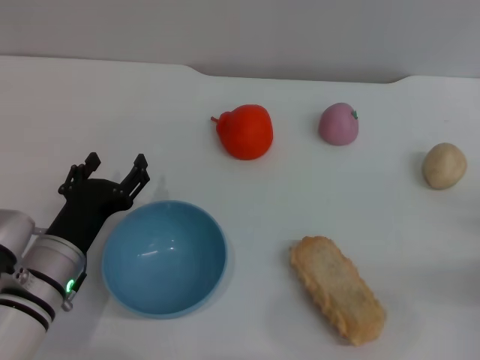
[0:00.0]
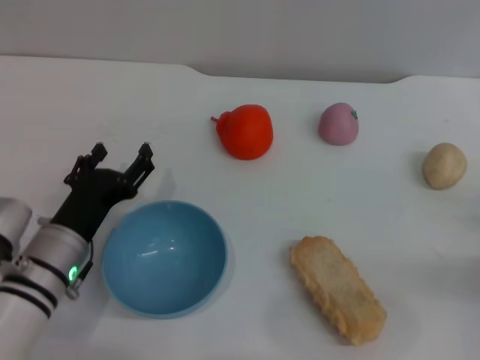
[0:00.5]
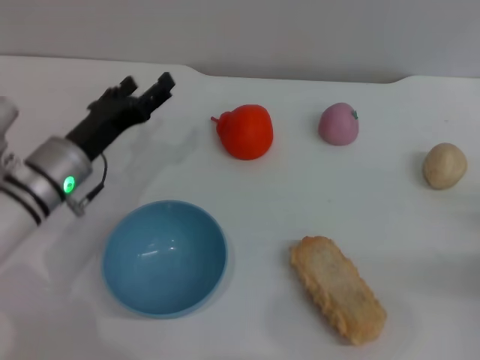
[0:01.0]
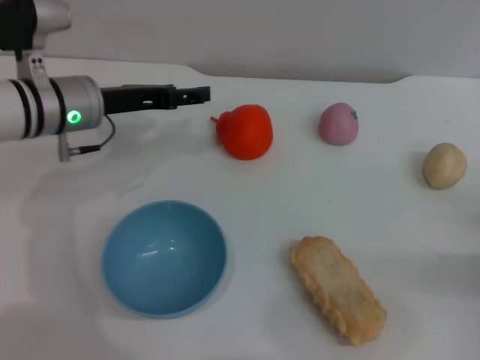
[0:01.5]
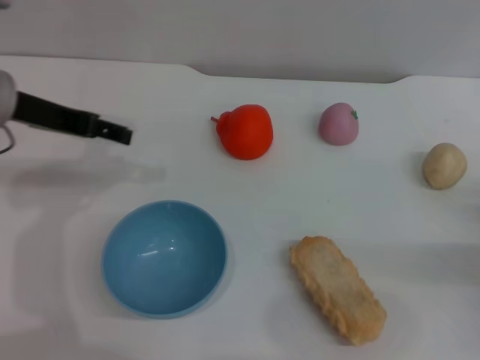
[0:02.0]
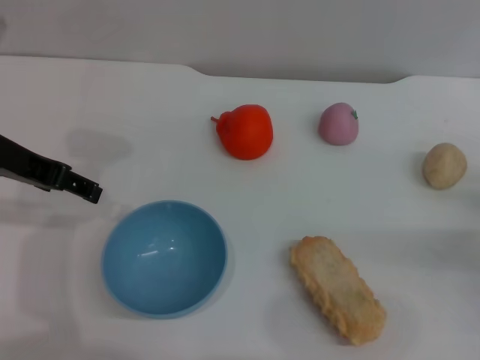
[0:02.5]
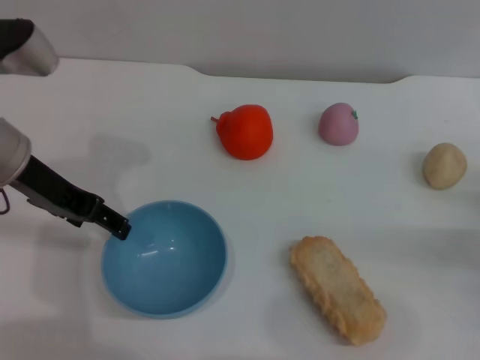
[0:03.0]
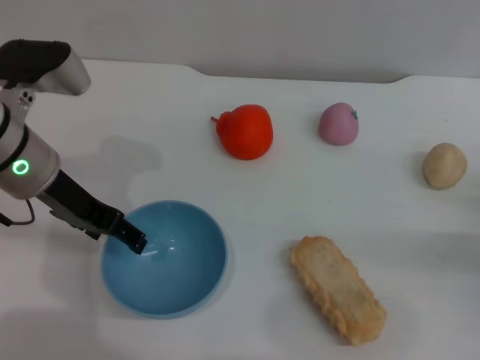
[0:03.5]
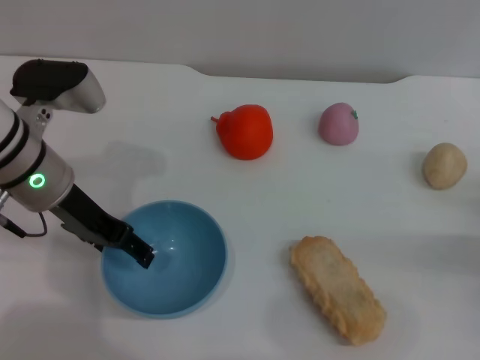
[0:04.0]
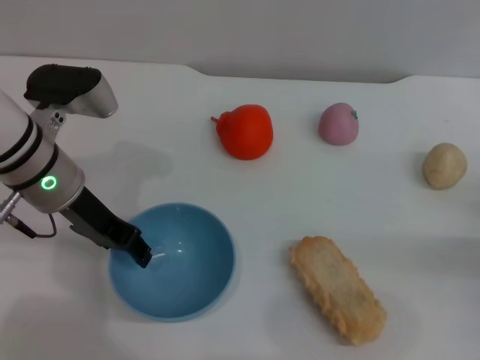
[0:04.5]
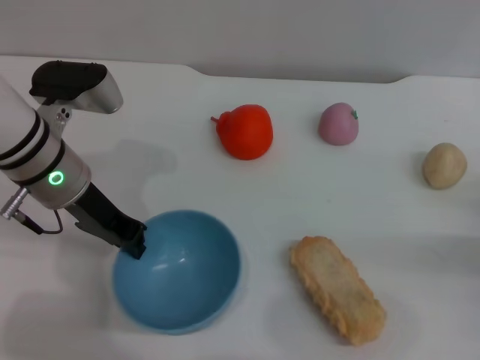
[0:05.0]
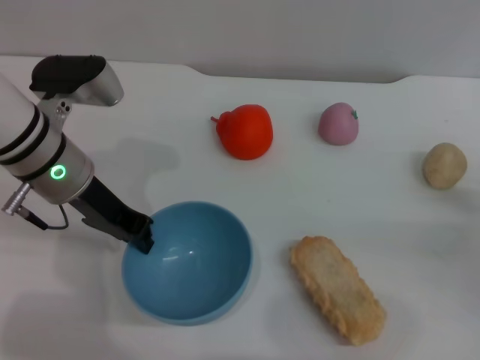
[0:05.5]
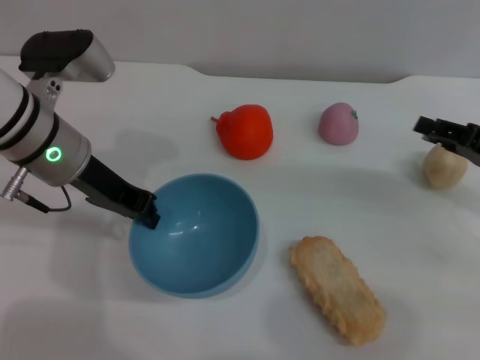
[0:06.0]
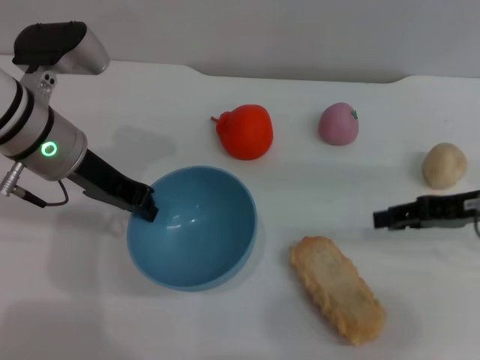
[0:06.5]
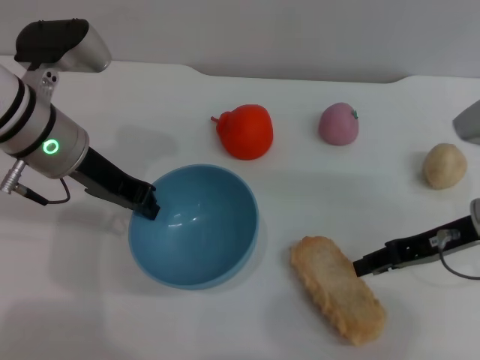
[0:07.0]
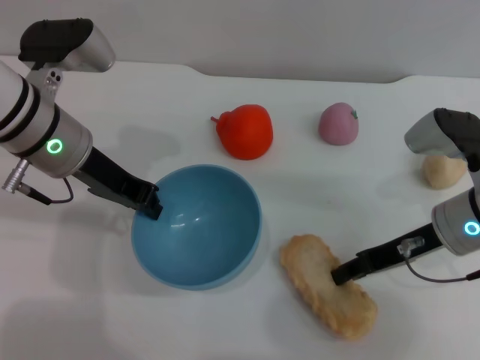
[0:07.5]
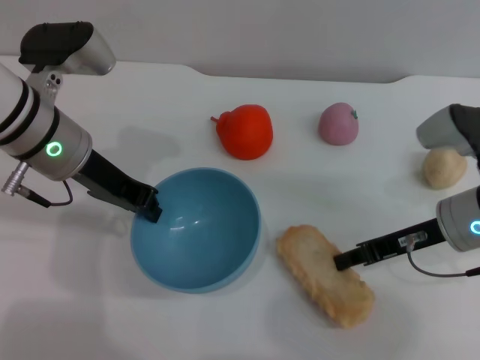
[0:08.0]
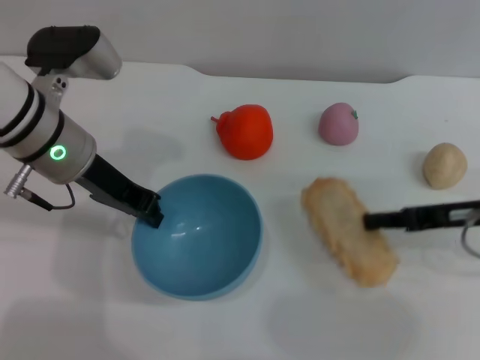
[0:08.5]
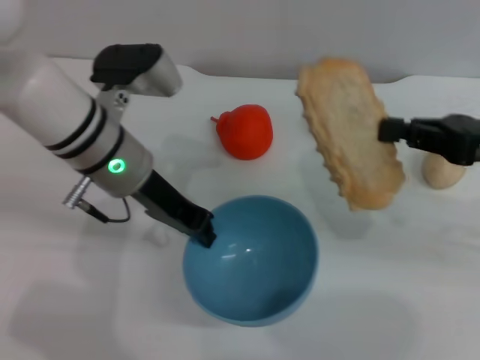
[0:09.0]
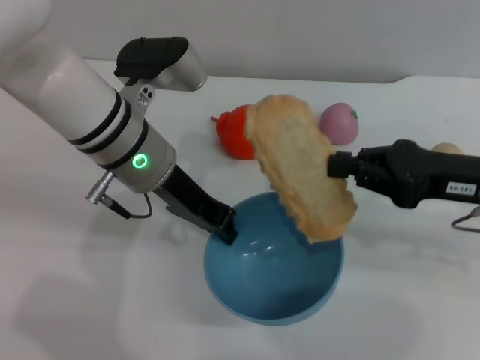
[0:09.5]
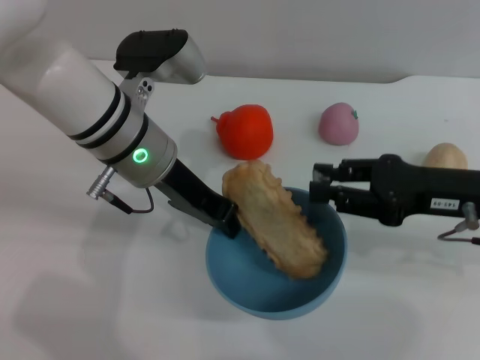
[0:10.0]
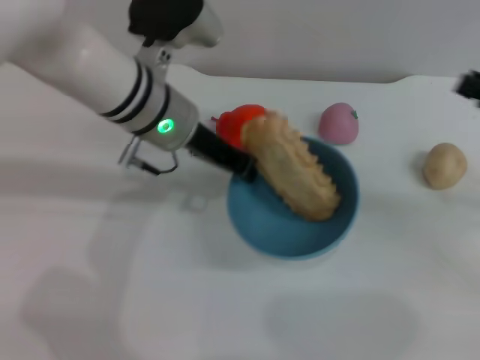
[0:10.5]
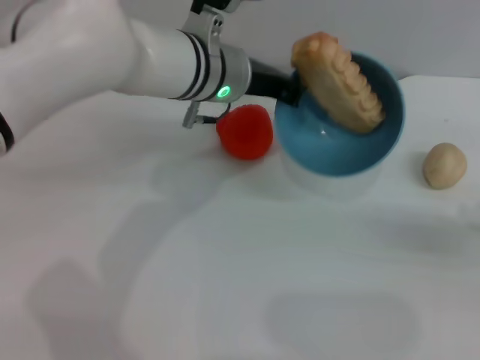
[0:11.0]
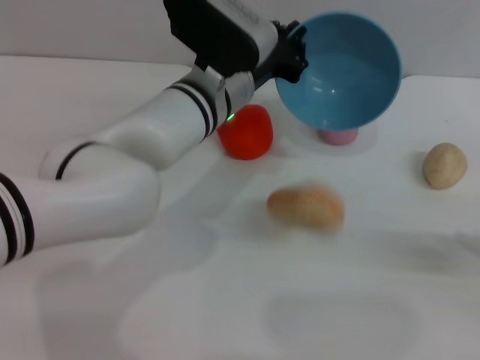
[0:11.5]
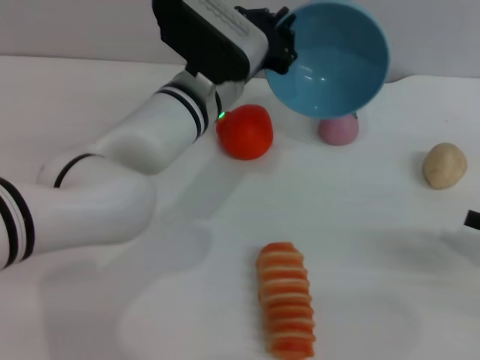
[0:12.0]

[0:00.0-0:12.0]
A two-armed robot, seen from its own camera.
Task of the whole recording: put the bread into the blue bowl and pour it out repeatedly.
Step, 0.0 to 6.0 s: Pick up the bowl with the left gripper.
Step, 6.5 to 8.0 s: Pick up the bread with the right gripper.
Step, 8.5 to 10.0 s: Place the bread into the bowl.
0.0 to 2.0 s: The left gripper moves upward and forward, roughly 20 cm.
2.0 to 4.0 s: The left gripper travels downward by roughly 5 cm.
4.0 to 6.0 s: The right gripper goes approximately 10 cm upward and forward; the left gripper closes up.
6.0 to 8.0 s: The right gripper moves to the left, roughly 10 cm.
8.0 to 10.0 s: The right gripper closes and opens again; the left gripper is displaced to the right by some 5 cm.
10.0 to 12.0 s: The left gripper heads to the right, covering some 5 cm, while the right gripper heads to the right and backward, covering some 15 cm, and opens its fingers.

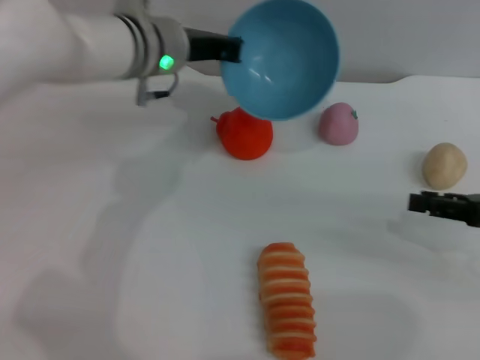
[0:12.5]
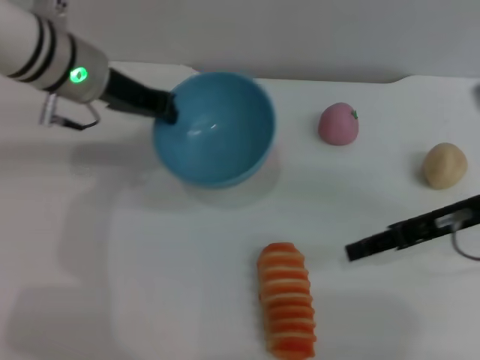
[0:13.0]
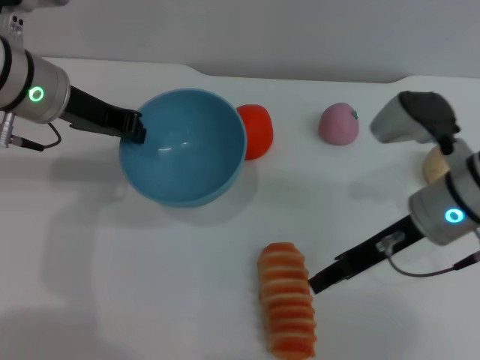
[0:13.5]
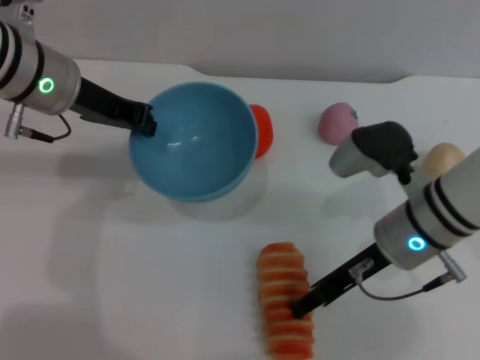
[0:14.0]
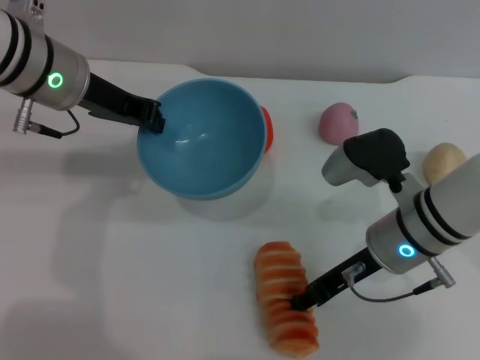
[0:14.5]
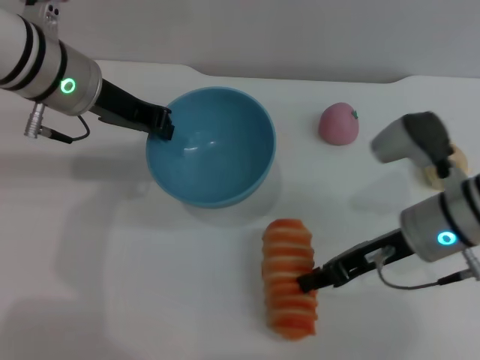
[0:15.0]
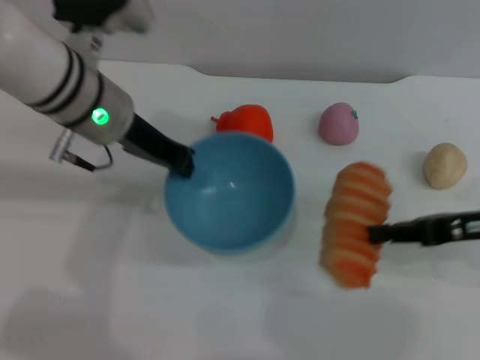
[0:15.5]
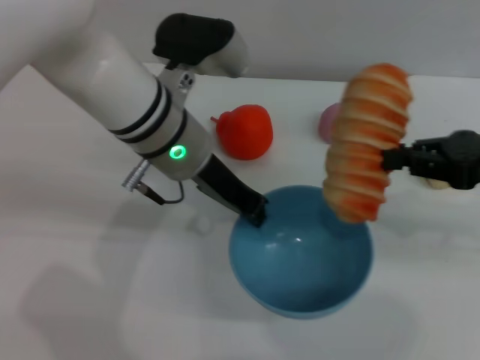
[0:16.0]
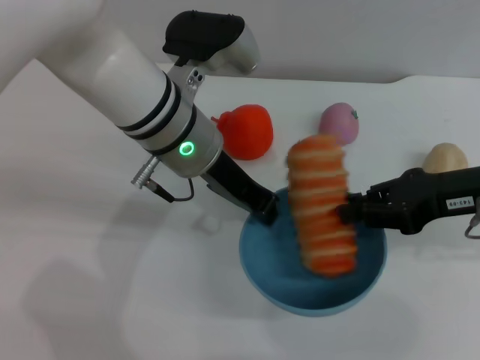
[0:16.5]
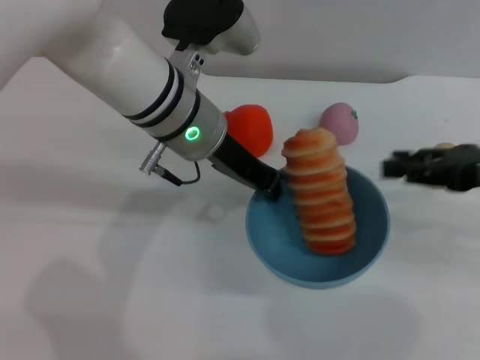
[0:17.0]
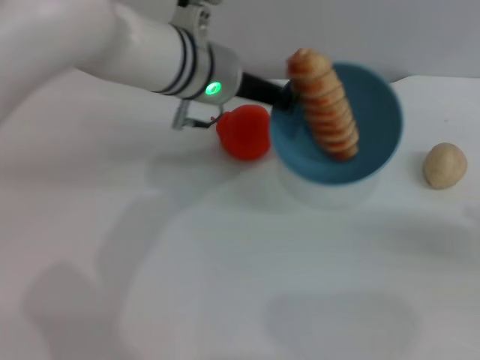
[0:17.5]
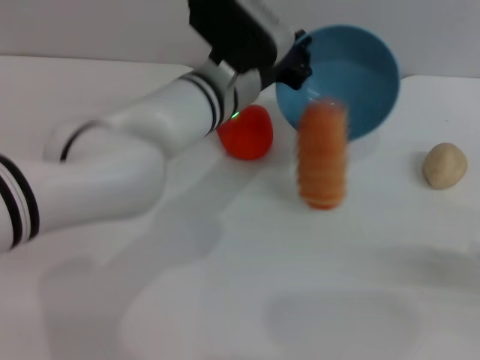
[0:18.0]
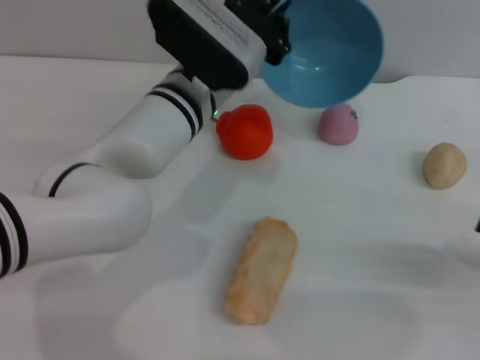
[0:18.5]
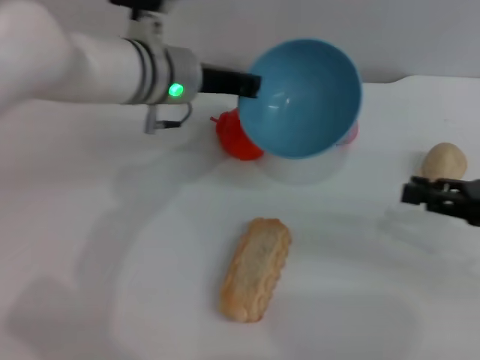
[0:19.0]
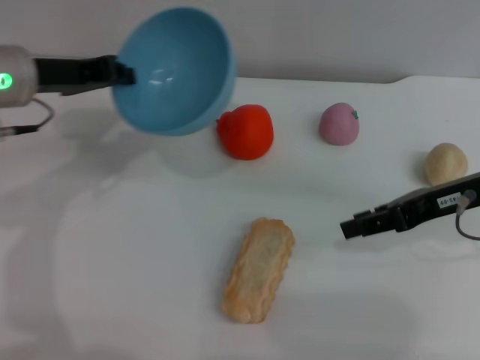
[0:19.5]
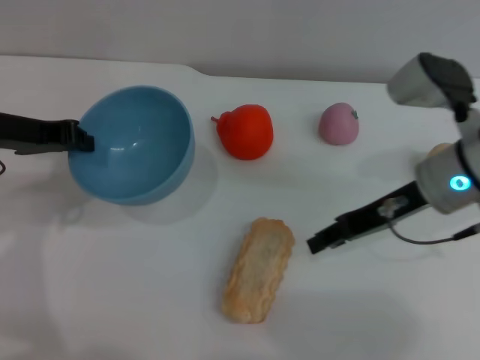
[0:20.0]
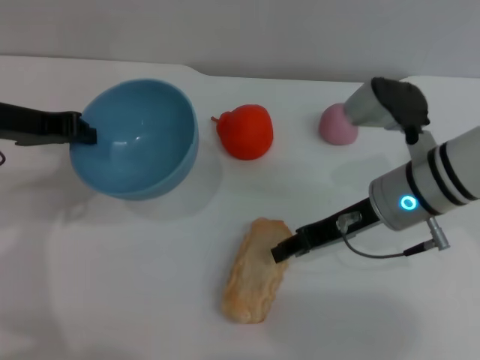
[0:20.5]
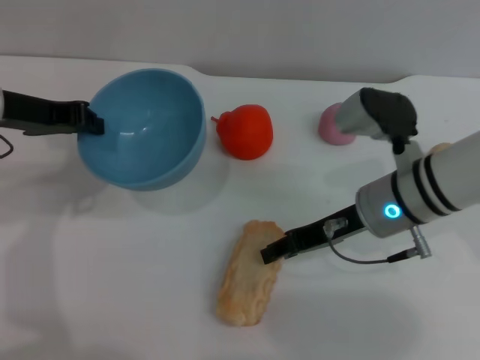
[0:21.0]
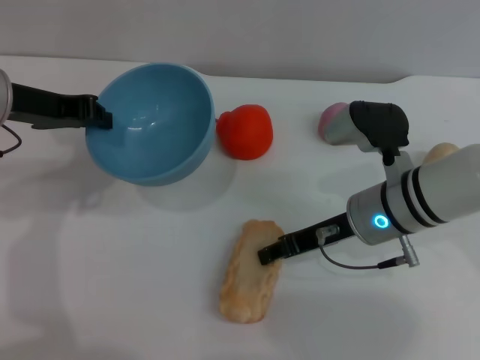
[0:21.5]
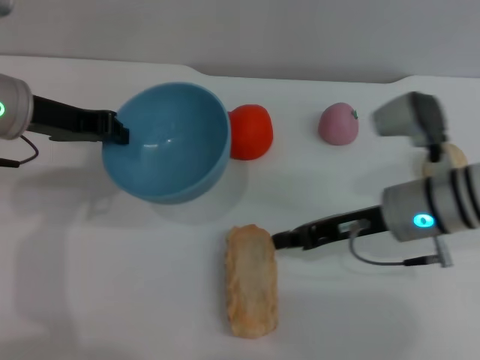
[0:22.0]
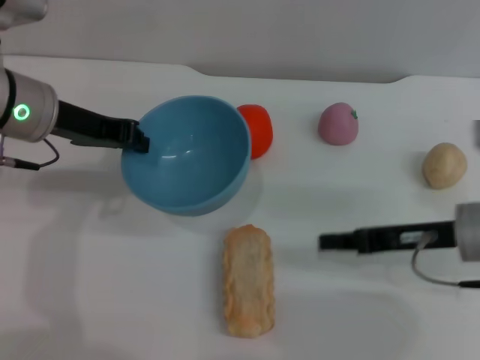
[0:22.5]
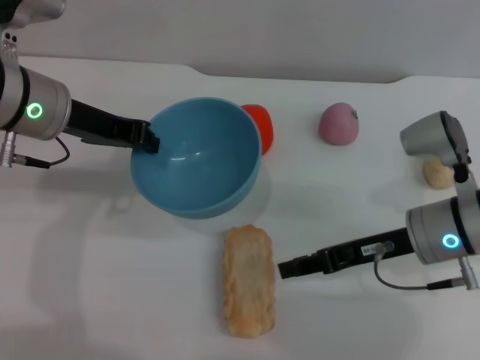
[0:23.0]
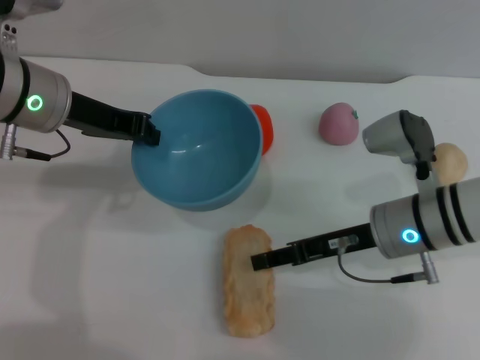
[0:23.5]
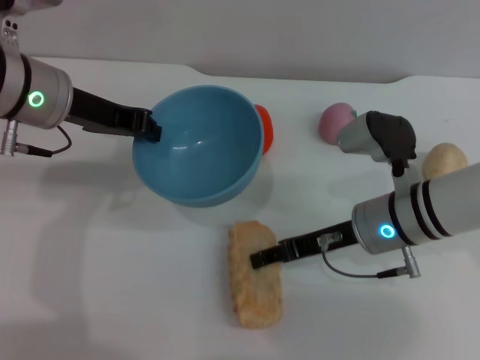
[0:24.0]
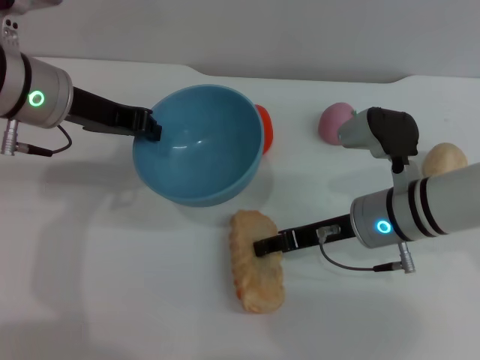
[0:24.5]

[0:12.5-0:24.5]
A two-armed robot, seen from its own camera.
Task of the whole recording: put the bread into the blue bowl and pour it out repeatedly.
Step, 12.5 to 15.0 s: Pick up the bread with the right gripper.
Step, 15.5 to 17.0 s: Place the bread into the bowl.
Step, 17.5 to 18.5 s: Pour the bread out of the bowl.
12.5 to 14.5 s: The right gripper travels to the left by some 20 cm. The left gripper moves to the left and backward, approximately 10 cm.
14.5 to 16.5 s: The left gripper is displaced to the right by about 10 cm, while the right gripper moves to the right and upward, roughly 15 cm, and closes up.
16.5 to 18.5 s: The right gripper goes approximately 20 cm to the right, backward and downward, and opens. Meanwhile the left gripper ends up about 5 cm from where it was.
18.5 to 20.5 s: The right gripper goes about 25 cm to the left and forward. The left gripper heads to the left, covering some 20 cm.
20.5 to 22.5 s: The right gripper heads to the right, covering some 10 cm, and closes up, while the left gripper moves roughly 5 cm.
22.5 to 24.5 s: The right gripper travels to the left by approximately 10 cm, and opens.

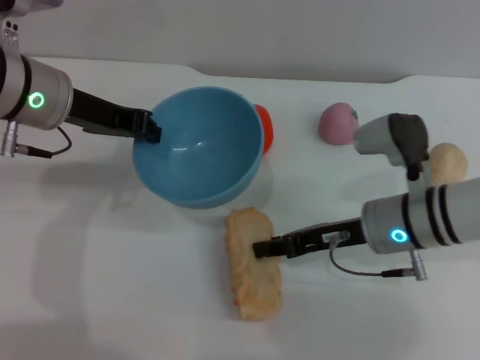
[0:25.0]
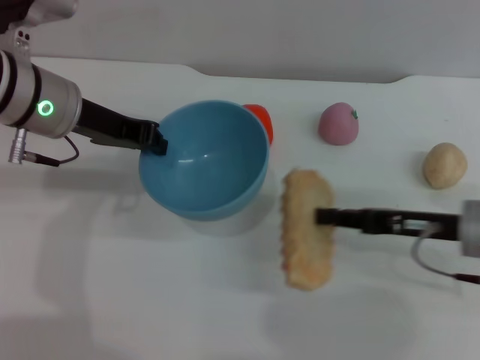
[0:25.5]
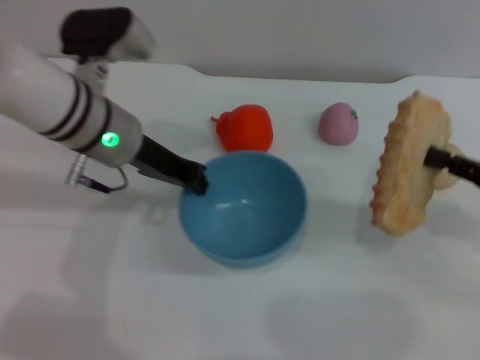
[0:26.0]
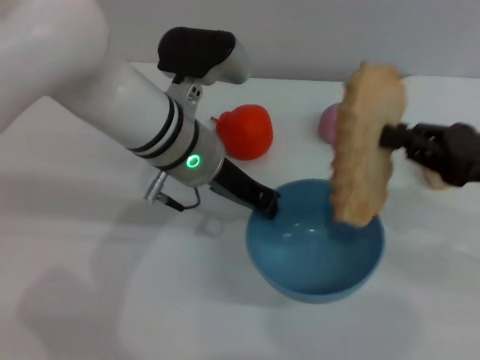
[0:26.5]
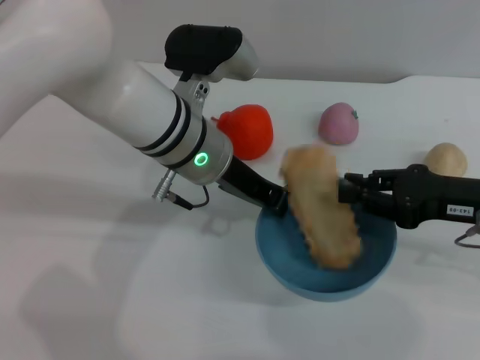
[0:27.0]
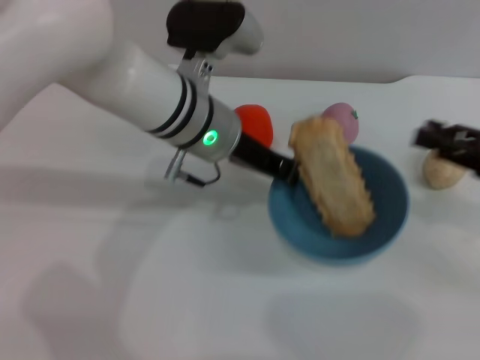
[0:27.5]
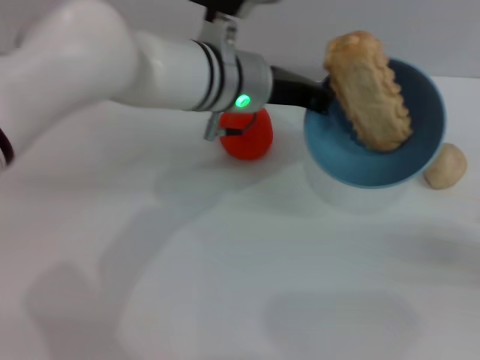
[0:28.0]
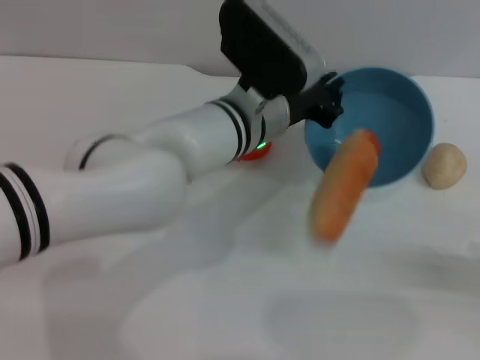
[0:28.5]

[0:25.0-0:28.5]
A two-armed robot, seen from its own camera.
Task of the whole recording: put the bread into the blue bowl and pour it out repeatedly.
Step, 26.0 to 27.0 s: Place the bread into the bowl.
25.0 to 27.0 s: The left gripper is displaced to the right by roughly 15 cm. Meanwhile the right gripper moves to the right and upward, approximately 10 cm, and closes its fingers.
27.0 to 28.5 s: The right gripper goes about 15 cm to the right and backward, and opens its fingers. Meanwhile the left gripper heads to the right, covering about 5 cm.
